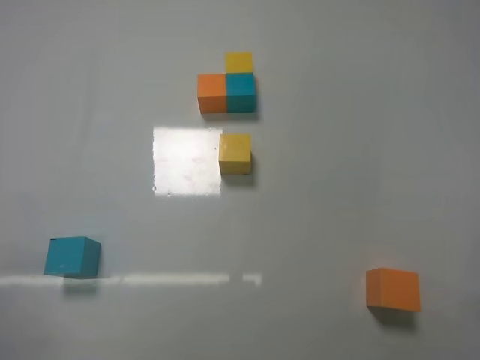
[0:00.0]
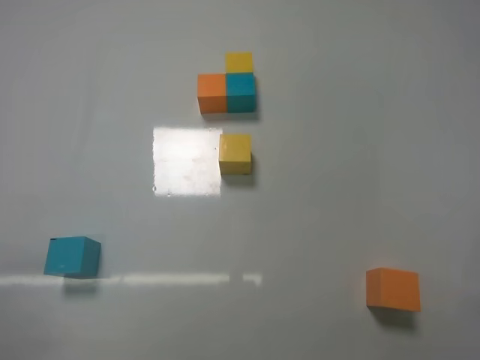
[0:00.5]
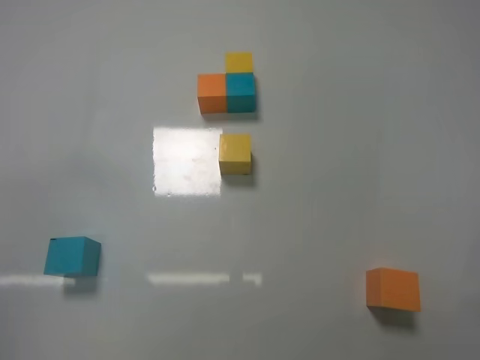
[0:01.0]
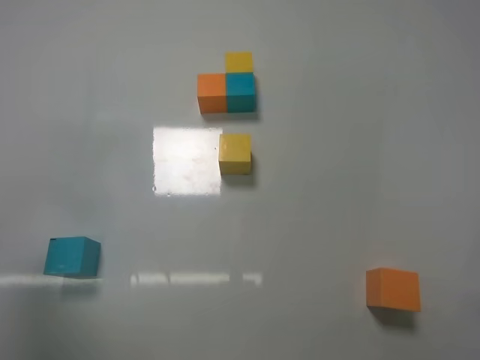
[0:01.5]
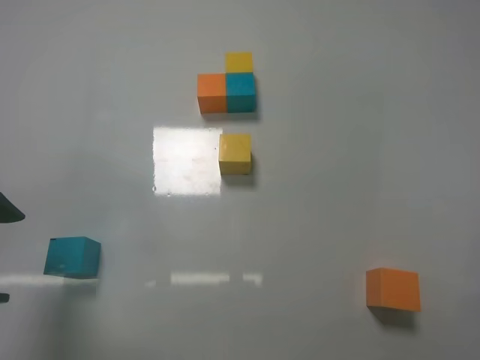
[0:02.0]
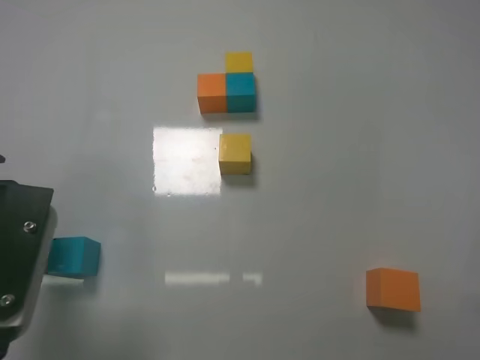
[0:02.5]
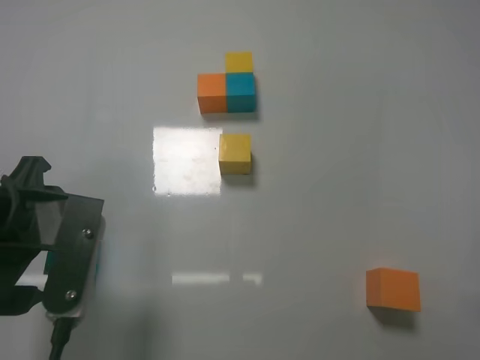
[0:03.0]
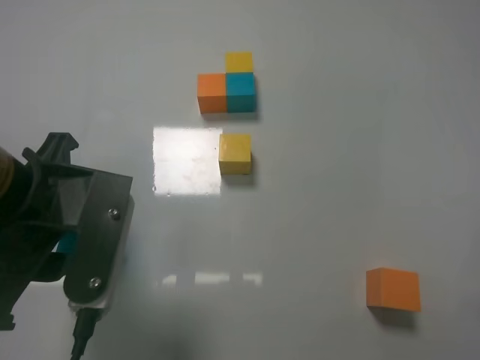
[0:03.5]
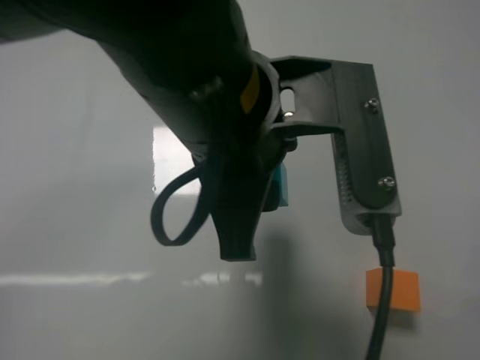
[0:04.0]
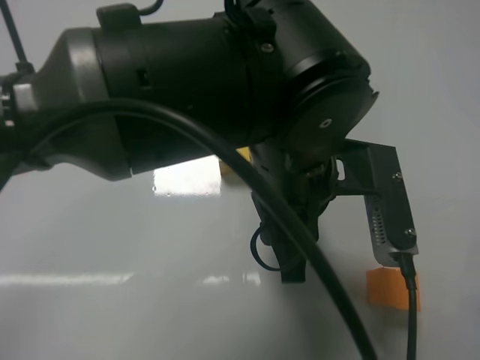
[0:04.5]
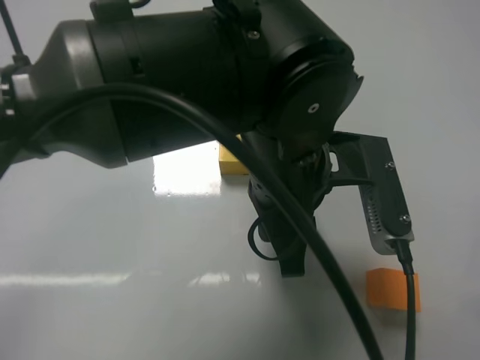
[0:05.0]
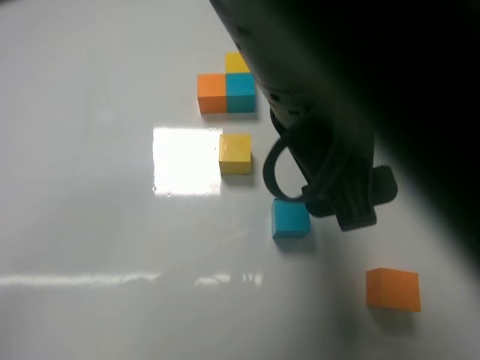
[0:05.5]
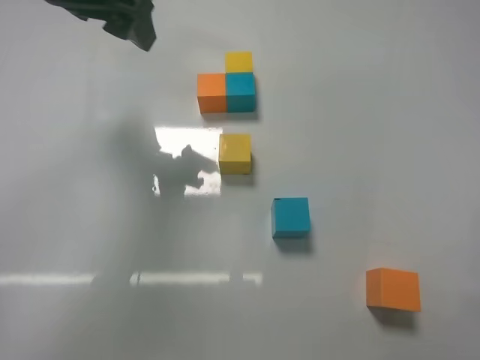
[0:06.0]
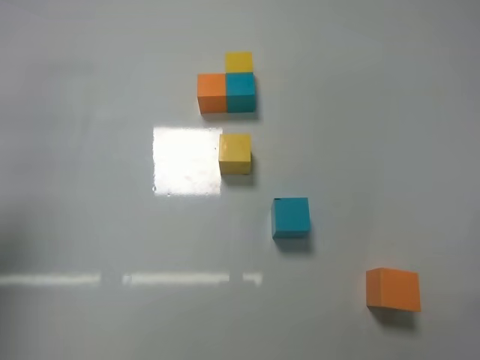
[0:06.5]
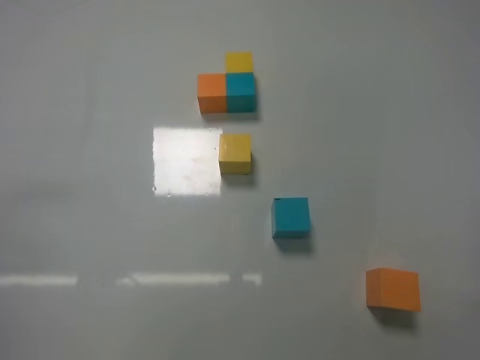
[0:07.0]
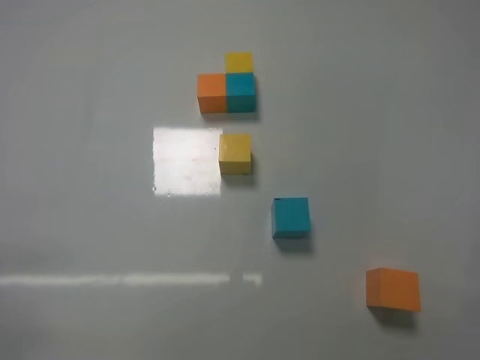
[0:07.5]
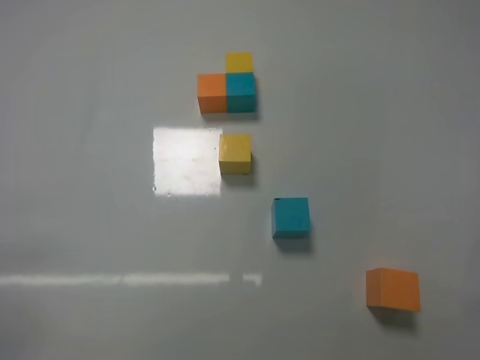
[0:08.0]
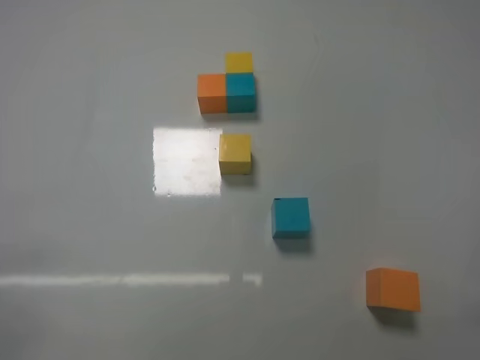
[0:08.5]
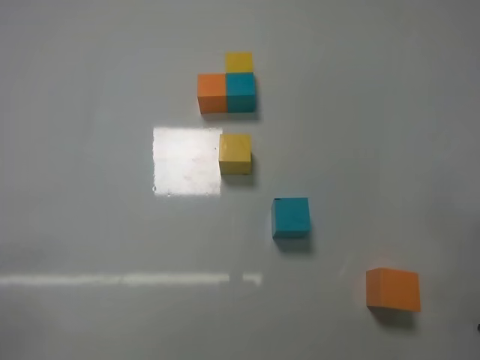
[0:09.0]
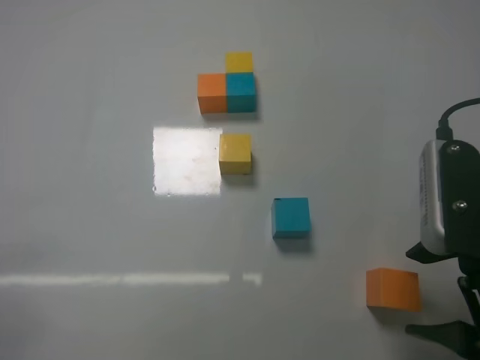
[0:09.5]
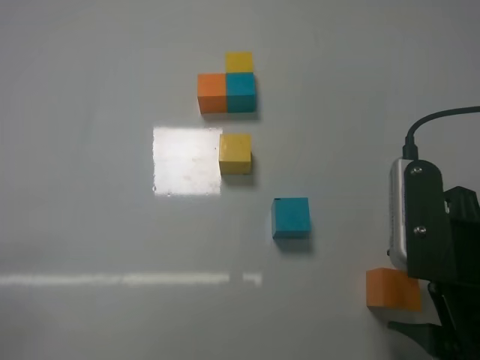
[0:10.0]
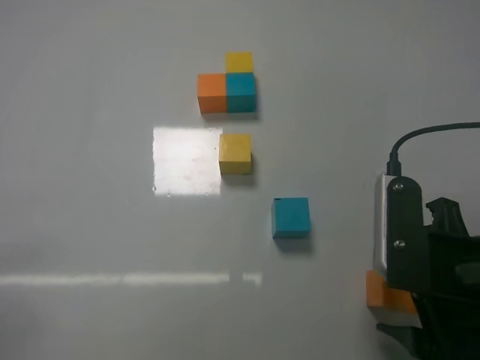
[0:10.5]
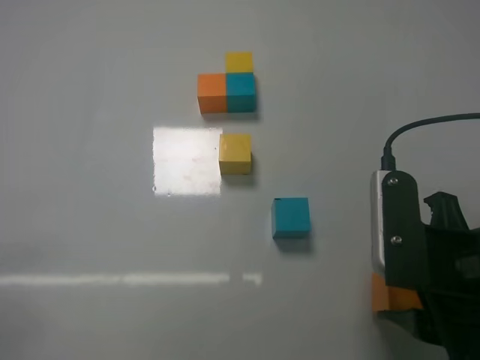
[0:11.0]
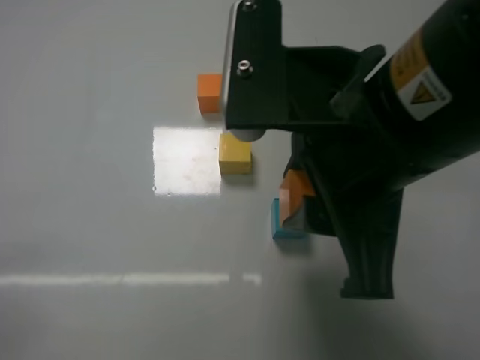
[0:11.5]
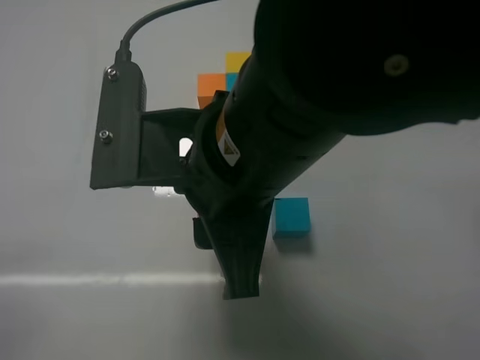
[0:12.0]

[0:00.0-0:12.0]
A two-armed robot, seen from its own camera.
Task of the whole recording: According to the building block template in front, assemble the scattered blocks together.
Step, 0:00.0 to 0:03.0: Grasp the blue block with left gripper.
Step, 0:03.5 to 0:05.0: Adjust the position of the cube with the left gripper.
Step, 0:05.5 to 0:10.5: Grasp the orange block with right gripper.
0:00.0 to 0:02.0: The left gripper goes about 20 cm forward, upward and to the right.
0:02.0 to 0:04.0: The left gripper is displaced to the right by some 25 cm, and closes.
0:04.0 to 0:06.0: The left gripper heads to the left, upward and forward, covering about 25 cm, and opens up.
0:06.0 to 0:08.0: The left gripper shifts approximately 40 cm backward, downward and to the left.
0:08.0 to 0:10.0: The right gripper is displaced forward and to the left by some 15 cm, and opens.
0:10.0 to 0:12.0: The right gripper shifts approximately 20 cm to the left, and closes up.

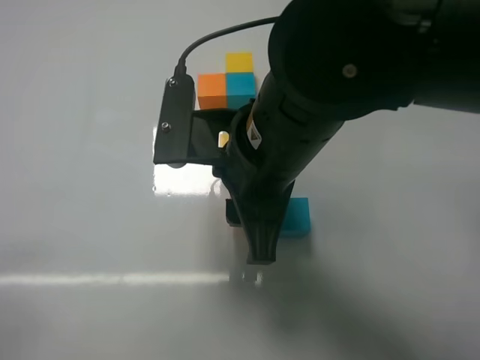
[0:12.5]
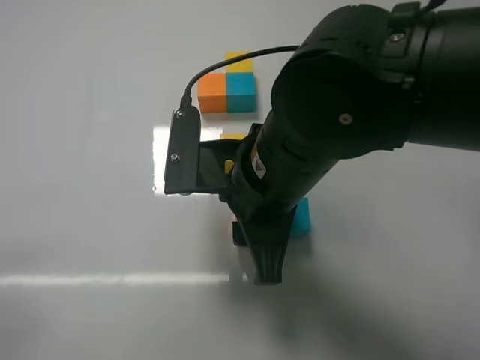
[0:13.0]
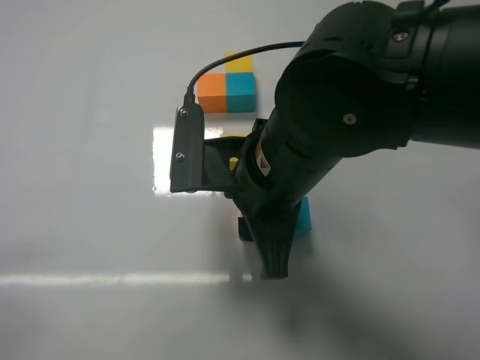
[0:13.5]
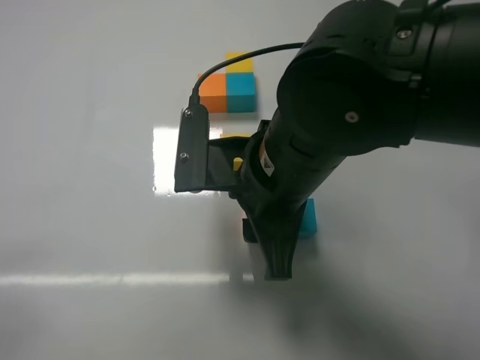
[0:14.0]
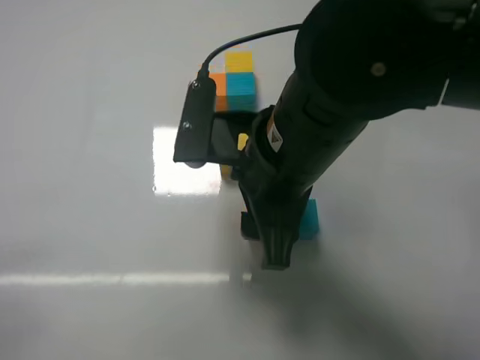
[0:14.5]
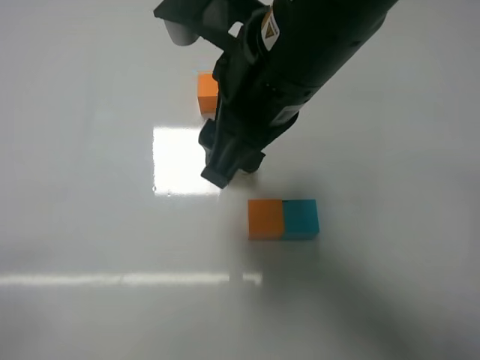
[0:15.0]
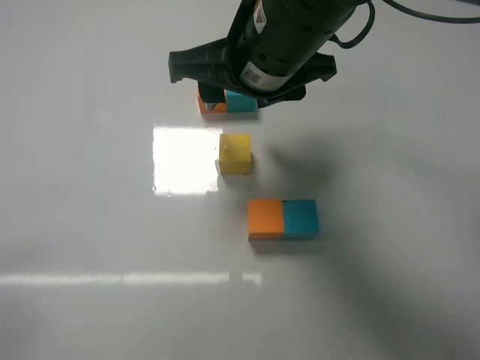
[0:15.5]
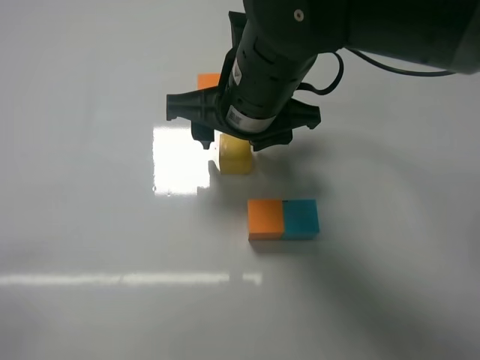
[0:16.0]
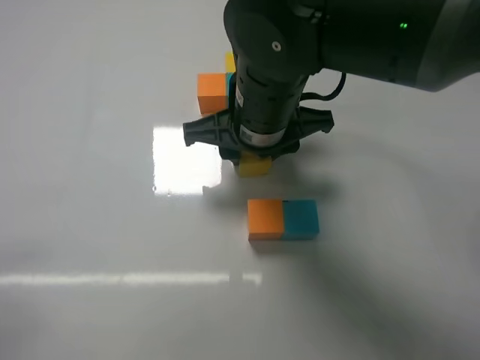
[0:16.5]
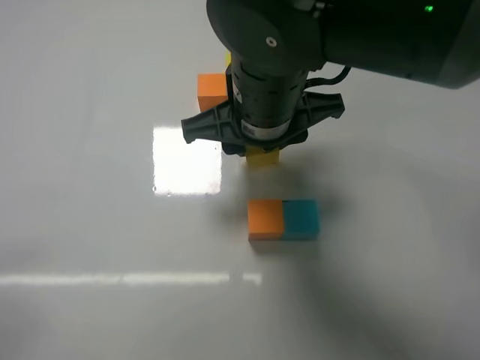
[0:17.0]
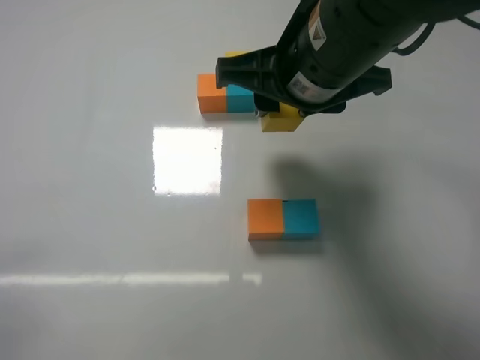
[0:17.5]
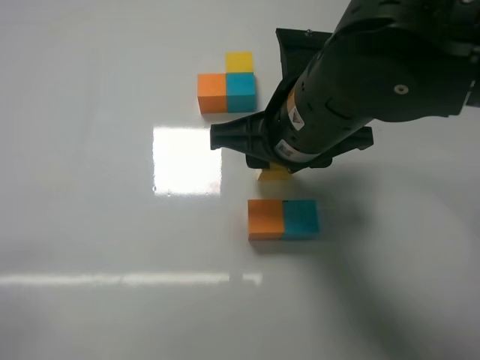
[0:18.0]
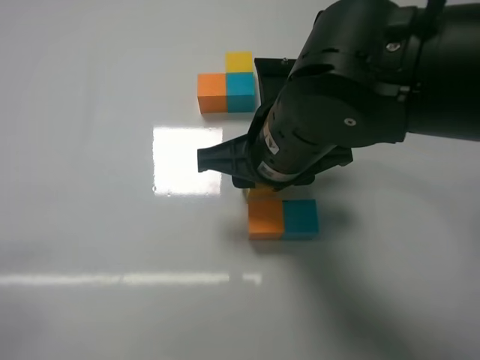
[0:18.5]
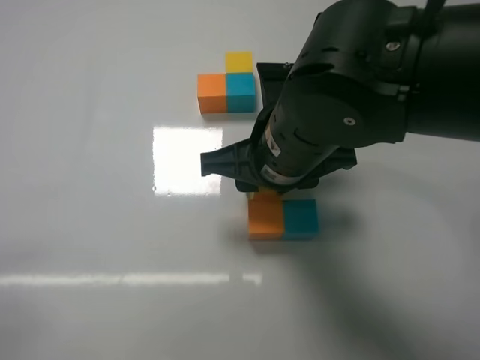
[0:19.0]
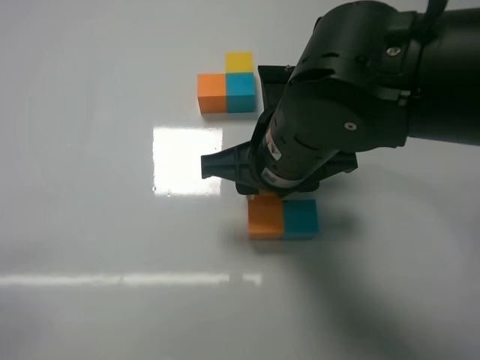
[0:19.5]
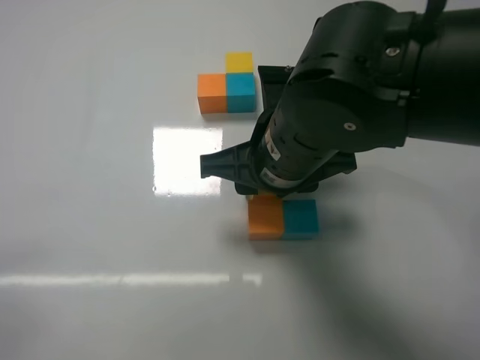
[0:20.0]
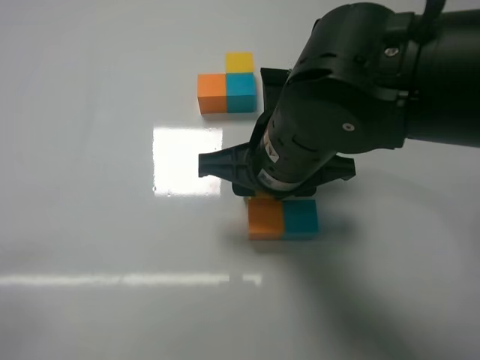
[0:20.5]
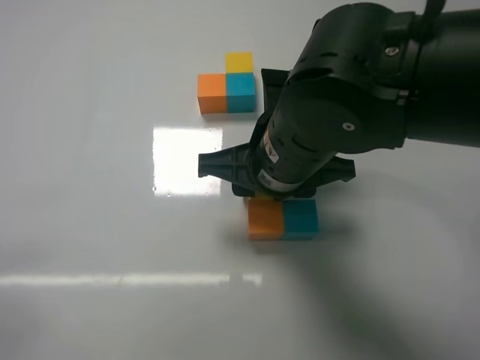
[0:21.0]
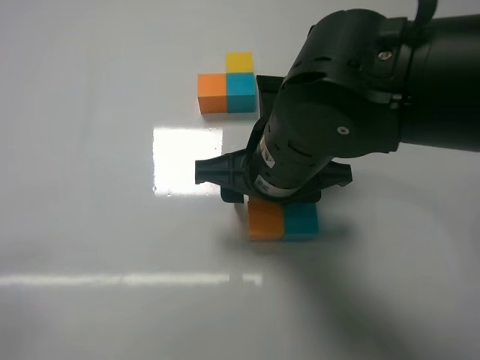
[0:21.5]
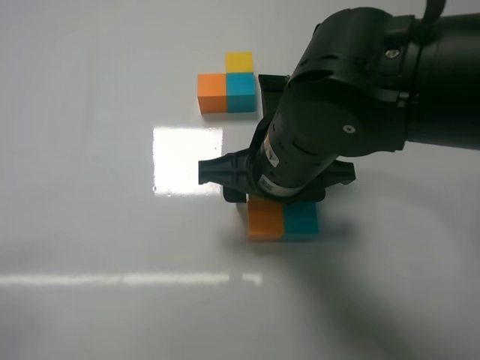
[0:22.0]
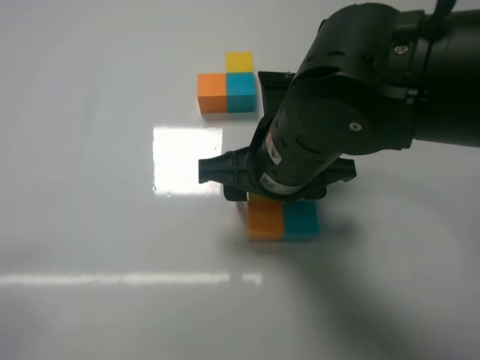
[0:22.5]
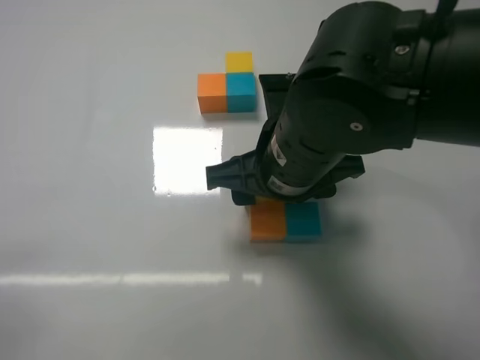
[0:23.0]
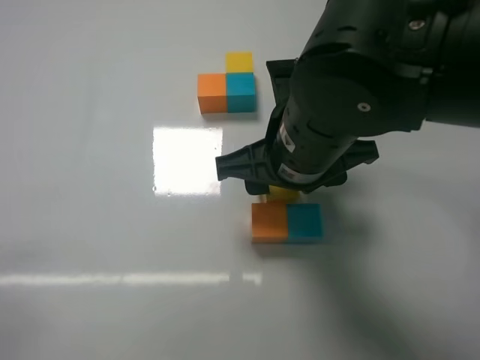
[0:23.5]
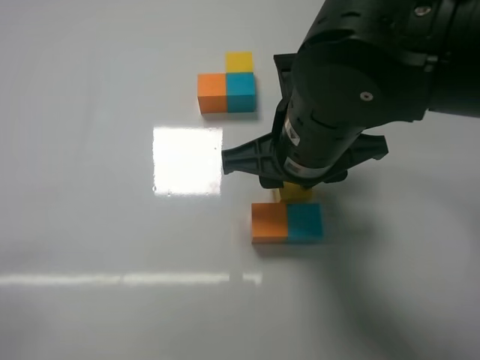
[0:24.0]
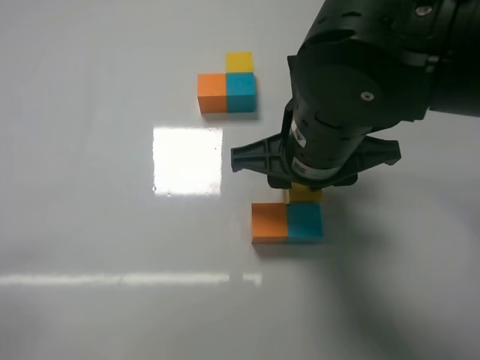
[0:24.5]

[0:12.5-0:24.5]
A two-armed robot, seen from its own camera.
Task of the whole recording: According to the building block template in front, assemble the scattered blocks together.
0:12.5 to 0:14.5: The grippers make only small movements.
0:14.5 to 0:16.5: The right gripper is displaced forward by roughly 5 cm.
0:18.5 to 0:20.5: The grippers move only a little.
0:20.5 to 0:22.5: Neither gripper changes place.
0:22.5 to 0:24.5: The right gripper closes its fingers.

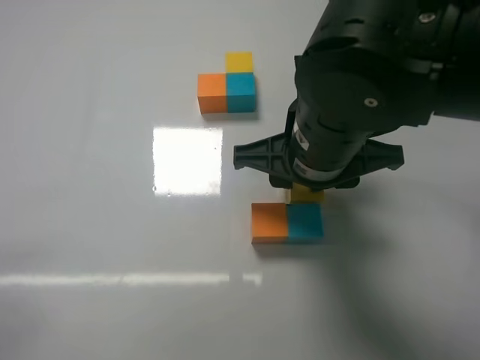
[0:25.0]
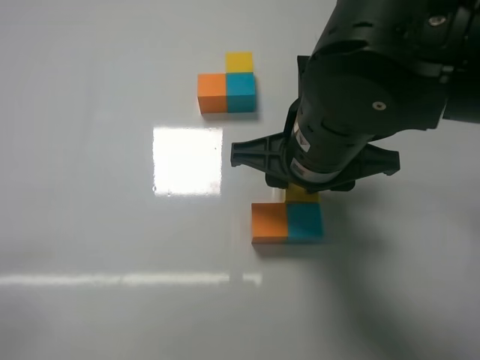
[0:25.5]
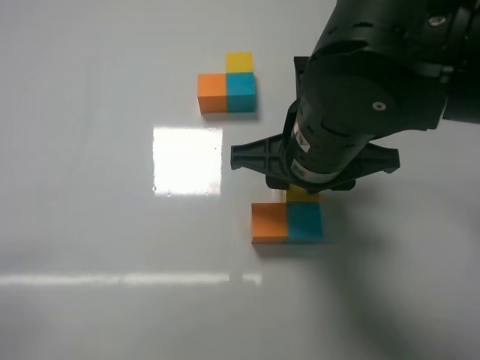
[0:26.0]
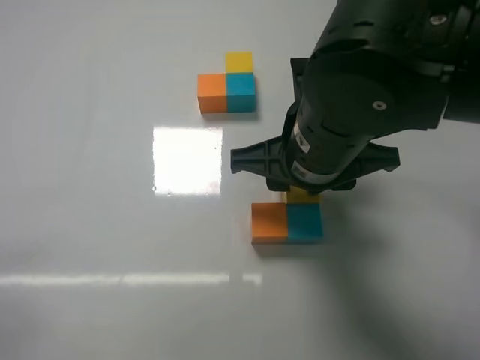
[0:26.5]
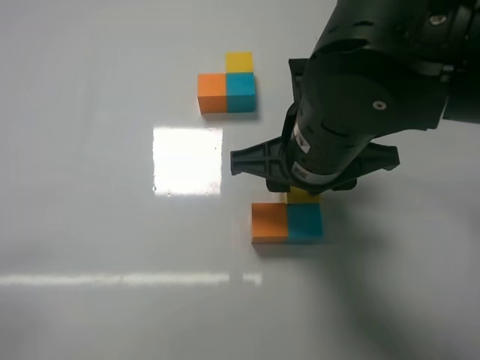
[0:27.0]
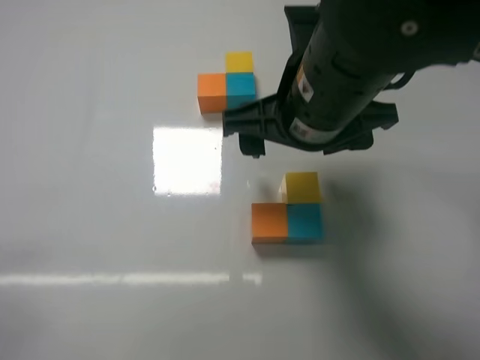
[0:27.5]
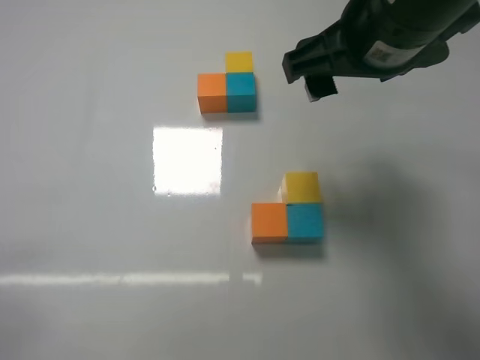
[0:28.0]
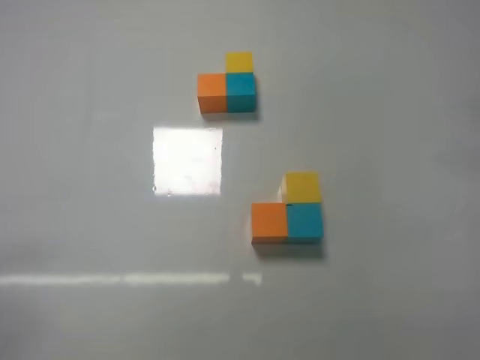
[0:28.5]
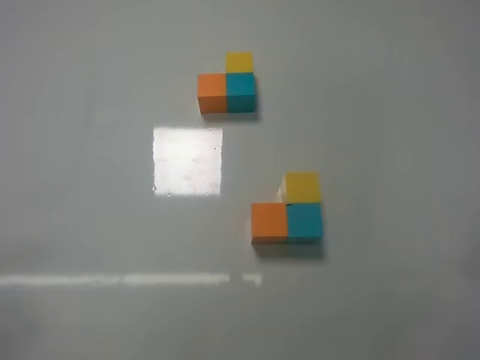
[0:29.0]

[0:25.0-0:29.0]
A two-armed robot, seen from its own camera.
Task of the whole recording: According to the building block template in front, assemble the scattered blocks together.
Step, 0:25.0 to 0:27.0: Put the yellow cube on the front of the blue cube with the right gripper.
0:25.0 to 0:27.0: Neither gripper changes place.
0:27.0 to 0:29.0: The right gripper travels to the right and backward by some 30 cm, and opens and closes again.
